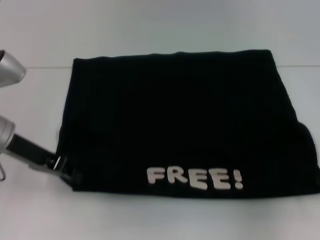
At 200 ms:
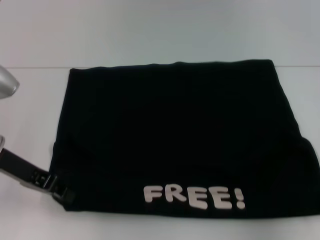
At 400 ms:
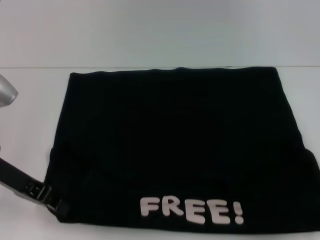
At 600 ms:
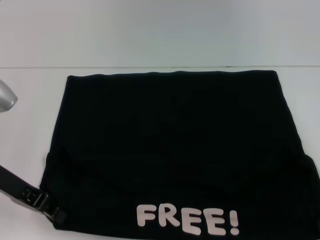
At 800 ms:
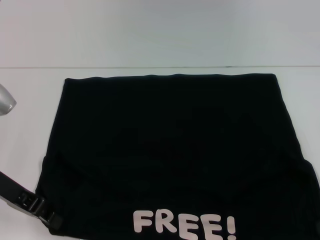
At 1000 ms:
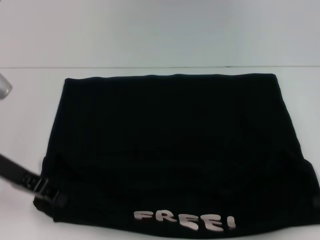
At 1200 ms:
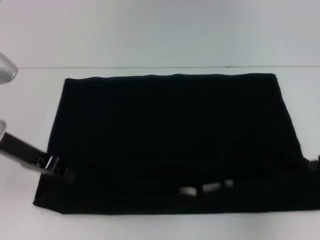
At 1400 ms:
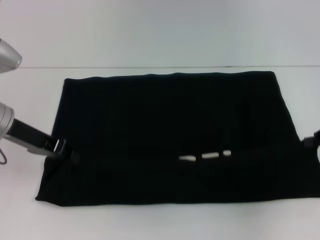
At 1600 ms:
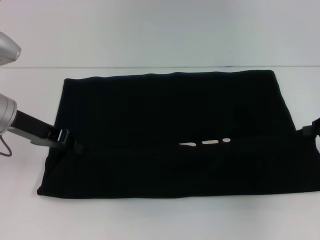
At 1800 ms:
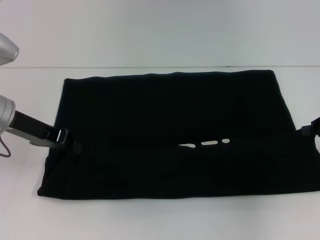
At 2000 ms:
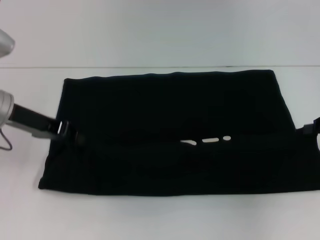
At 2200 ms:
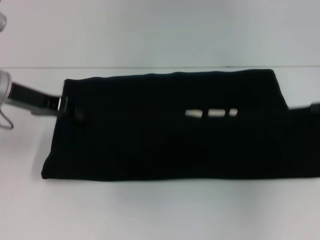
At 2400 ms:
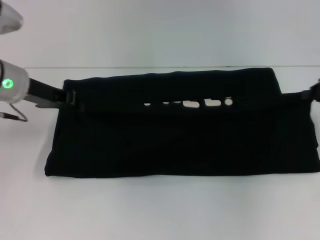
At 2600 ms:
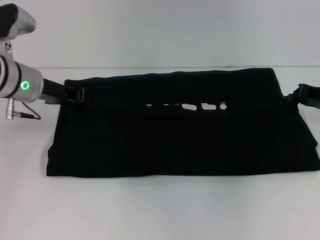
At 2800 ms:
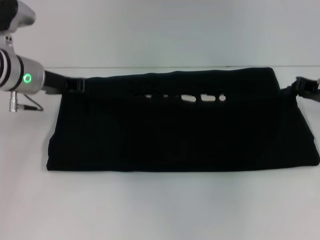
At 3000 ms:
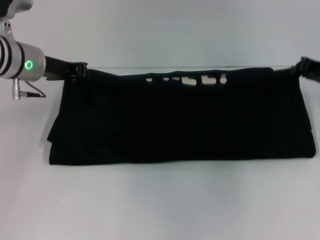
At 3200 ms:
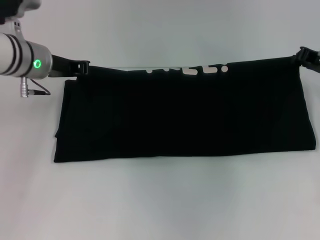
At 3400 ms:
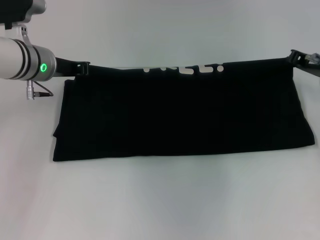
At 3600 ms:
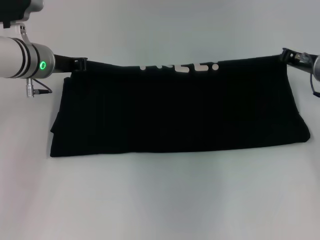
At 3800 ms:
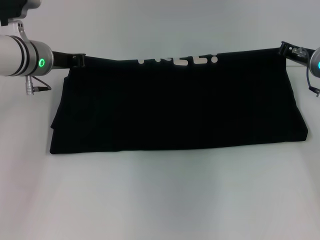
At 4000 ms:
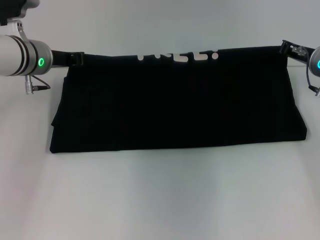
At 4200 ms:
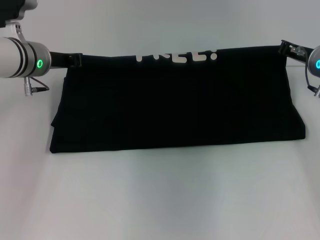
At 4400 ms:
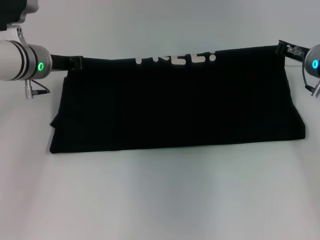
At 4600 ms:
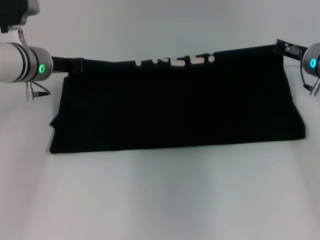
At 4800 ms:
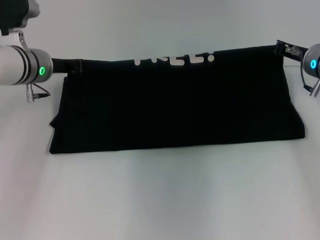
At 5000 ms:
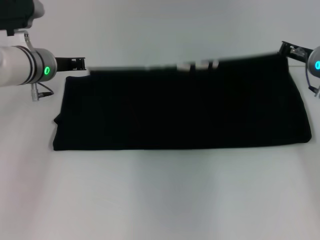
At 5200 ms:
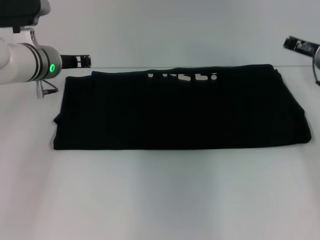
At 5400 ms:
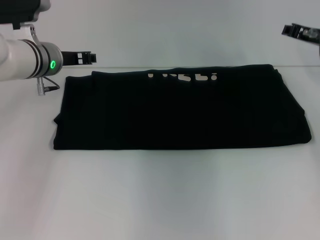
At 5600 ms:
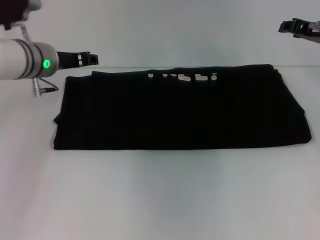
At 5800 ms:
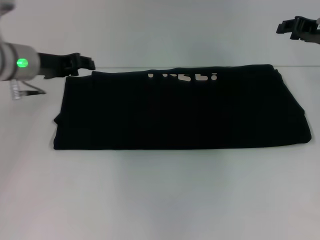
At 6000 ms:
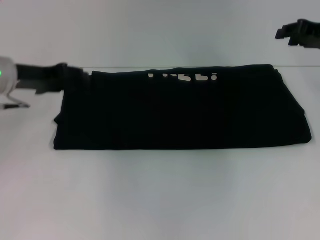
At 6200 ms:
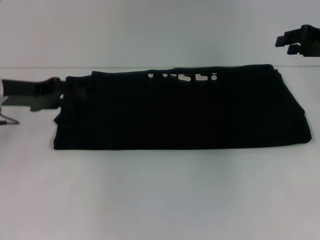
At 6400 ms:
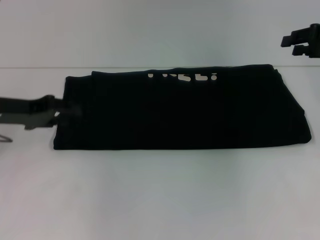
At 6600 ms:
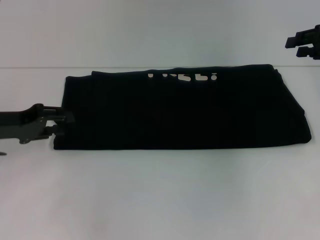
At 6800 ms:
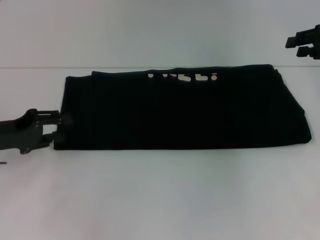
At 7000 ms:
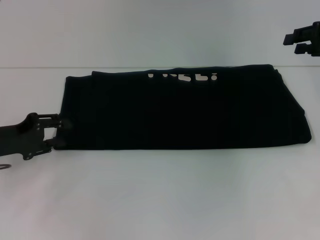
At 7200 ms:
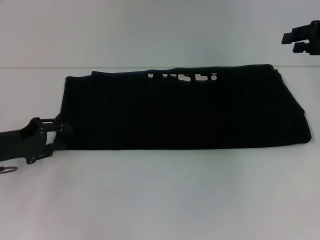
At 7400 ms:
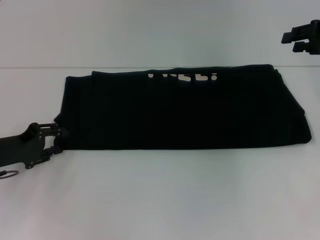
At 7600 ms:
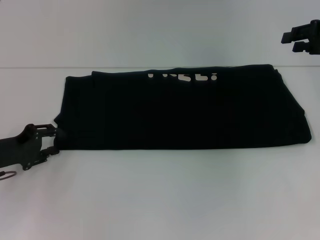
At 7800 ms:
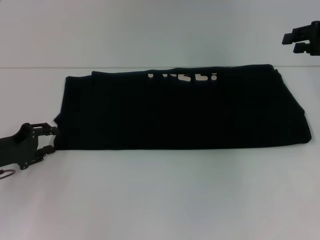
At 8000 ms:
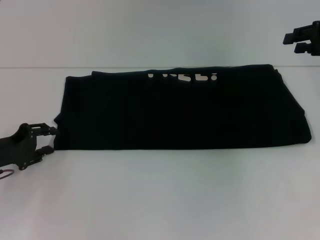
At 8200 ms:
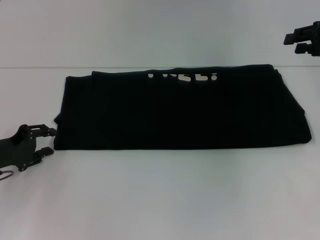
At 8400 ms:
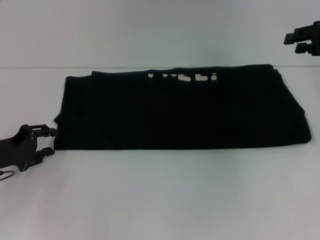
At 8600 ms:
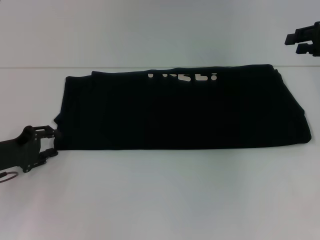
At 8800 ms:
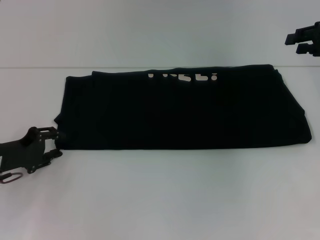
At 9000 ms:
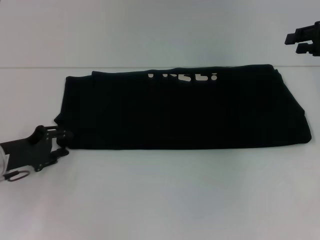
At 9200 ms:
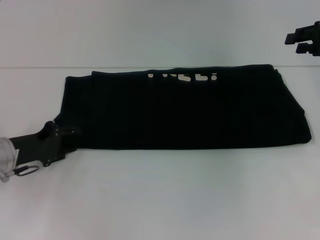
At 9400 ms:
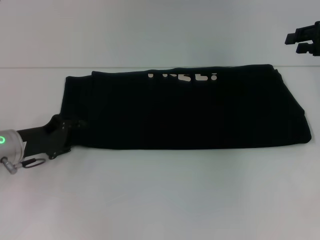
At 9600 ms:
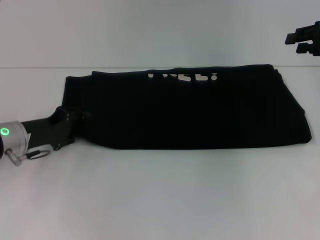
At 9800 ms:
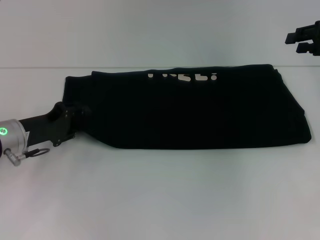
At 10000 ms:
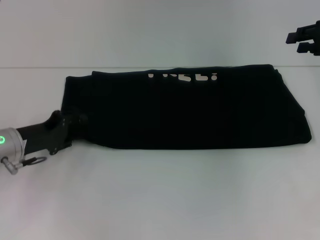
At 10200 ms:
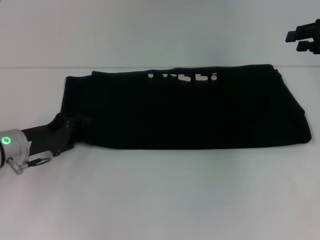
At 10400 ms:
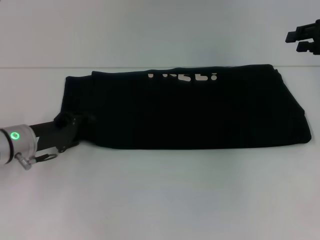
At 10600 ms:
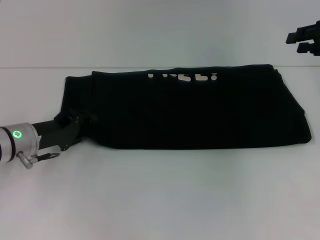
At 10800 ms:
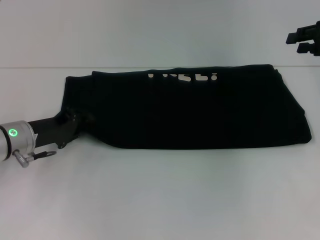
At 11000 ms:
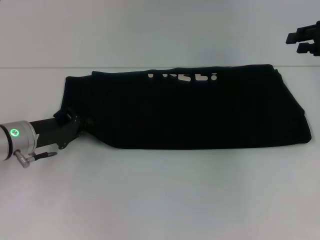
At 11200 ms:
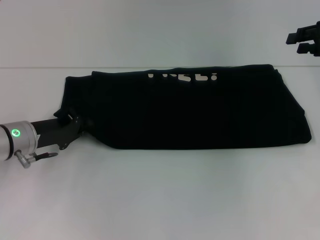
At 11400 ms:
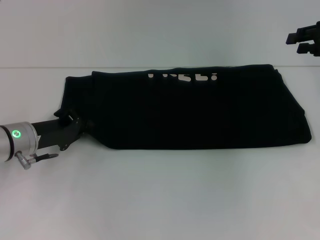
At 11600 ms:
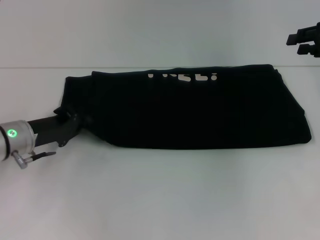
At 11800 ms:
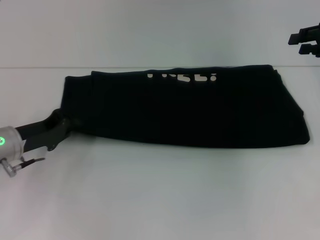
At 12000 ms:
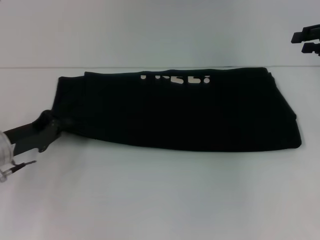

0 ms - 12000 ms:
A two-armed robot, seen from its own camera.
Step, 1000 ms - 5000 ms: Fold the clothes with your right hand.
1600 ms - 3000 ms: The grippers both shift forward by approximately 5 cm.
3000 ms - 4400 ms: The right gripper travels to the left by roughly 5 cm.
4400 ms - 6000 ms: The right gripper is displaced upward and to the right by about 10 cm. Meanwhile the left gripper shifts roughly 5 cm to the left, and opens up.
6000 ms - 7600 ms: The left gripper travels downward and backward by about 15 cm.
7600 ms - 9000 ms: The grippers stay close to where they were, moving slightly.
9000 ms - 10400 ms: The left gripper shifts by roughly 5 cm.
10400 ms - 12000 ms: The left gripper closes up.

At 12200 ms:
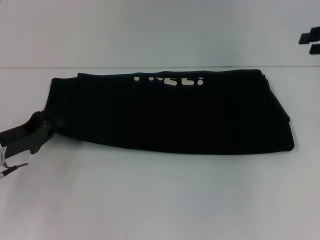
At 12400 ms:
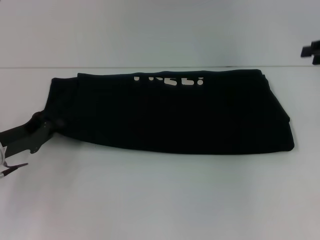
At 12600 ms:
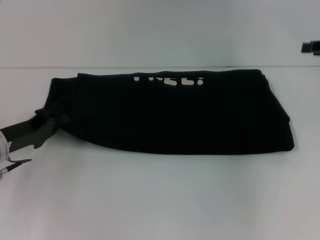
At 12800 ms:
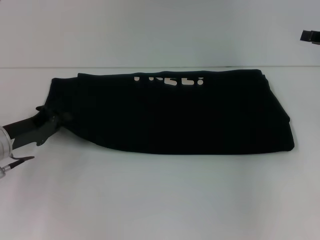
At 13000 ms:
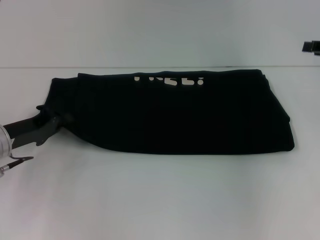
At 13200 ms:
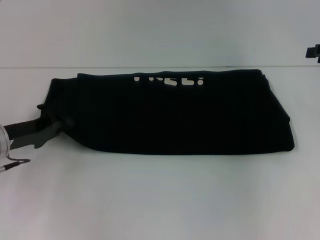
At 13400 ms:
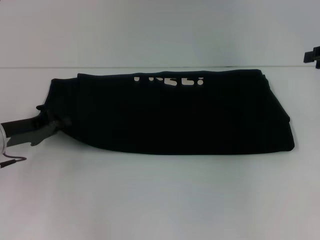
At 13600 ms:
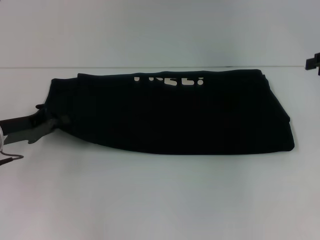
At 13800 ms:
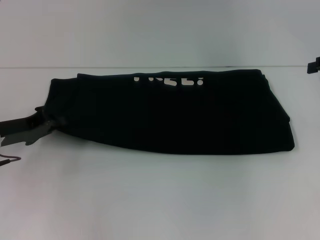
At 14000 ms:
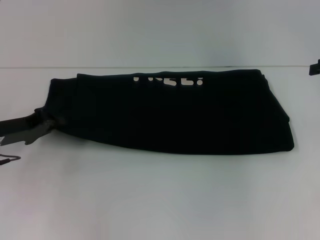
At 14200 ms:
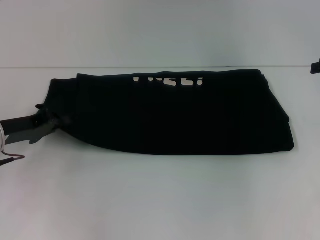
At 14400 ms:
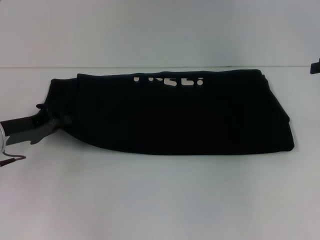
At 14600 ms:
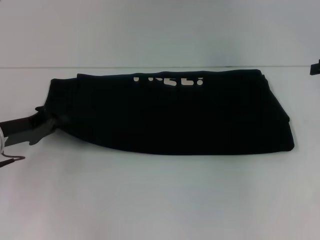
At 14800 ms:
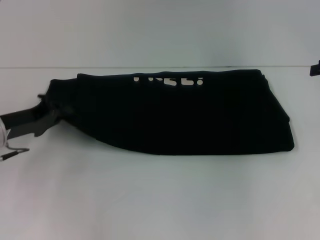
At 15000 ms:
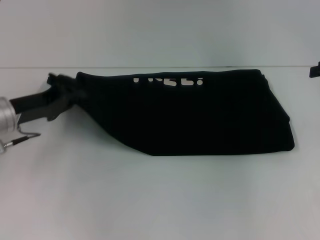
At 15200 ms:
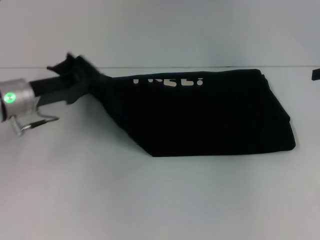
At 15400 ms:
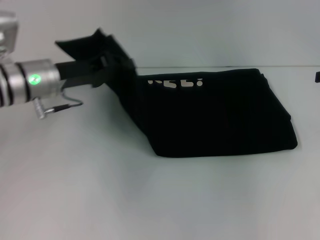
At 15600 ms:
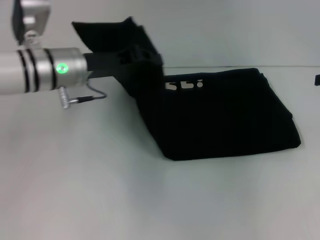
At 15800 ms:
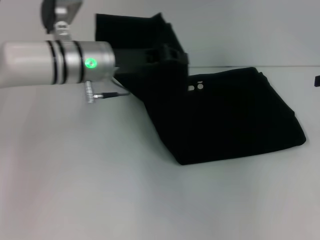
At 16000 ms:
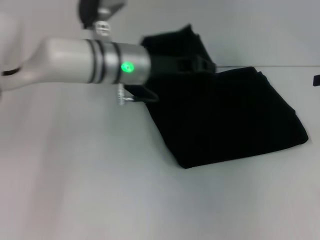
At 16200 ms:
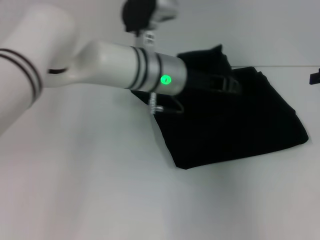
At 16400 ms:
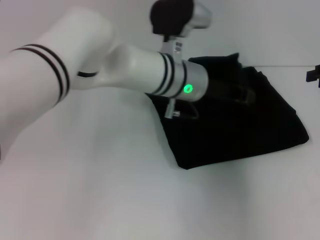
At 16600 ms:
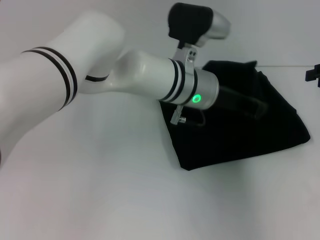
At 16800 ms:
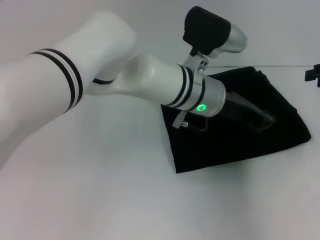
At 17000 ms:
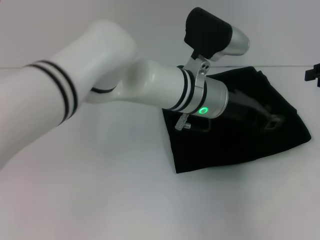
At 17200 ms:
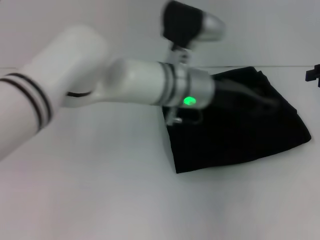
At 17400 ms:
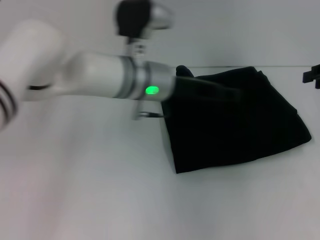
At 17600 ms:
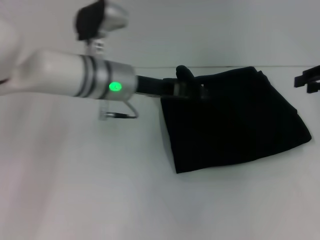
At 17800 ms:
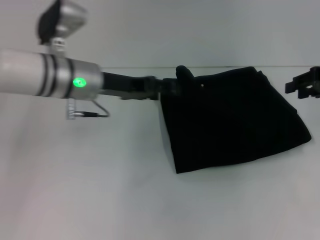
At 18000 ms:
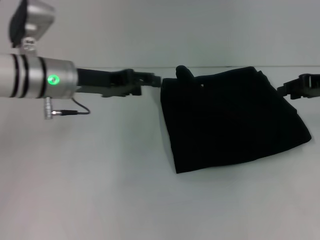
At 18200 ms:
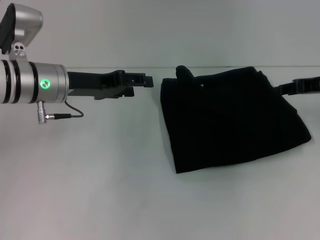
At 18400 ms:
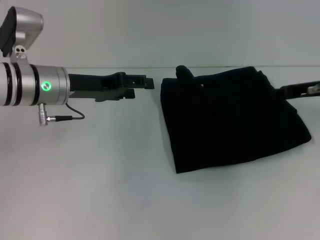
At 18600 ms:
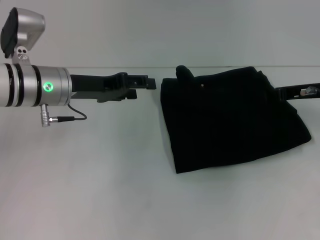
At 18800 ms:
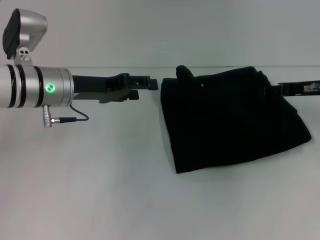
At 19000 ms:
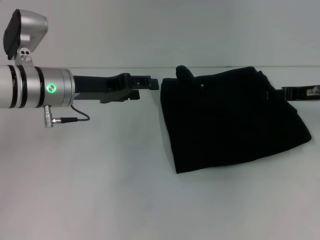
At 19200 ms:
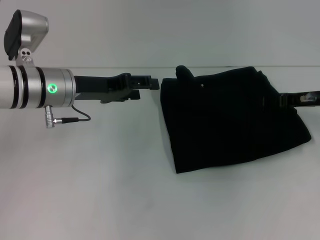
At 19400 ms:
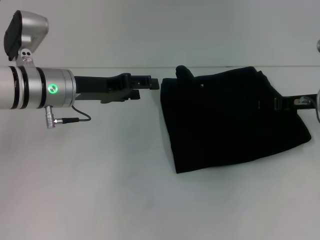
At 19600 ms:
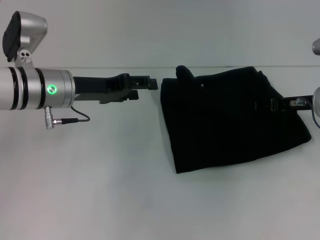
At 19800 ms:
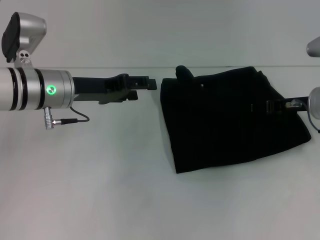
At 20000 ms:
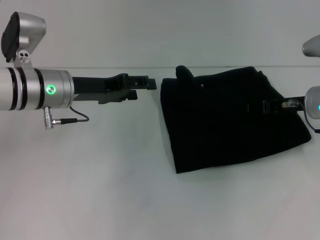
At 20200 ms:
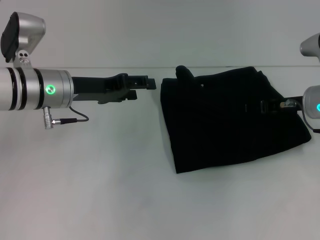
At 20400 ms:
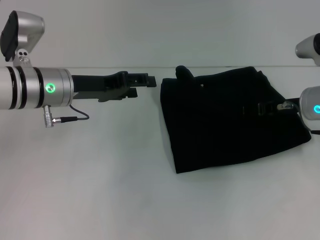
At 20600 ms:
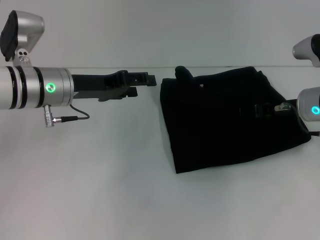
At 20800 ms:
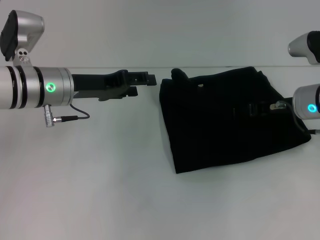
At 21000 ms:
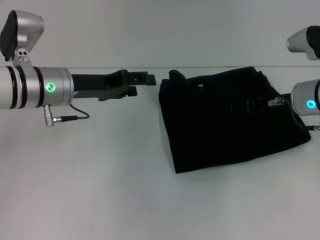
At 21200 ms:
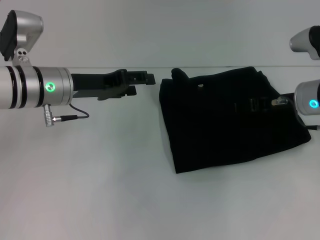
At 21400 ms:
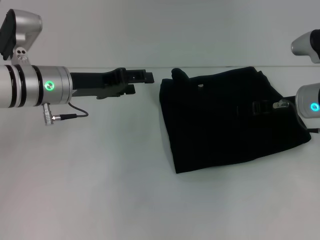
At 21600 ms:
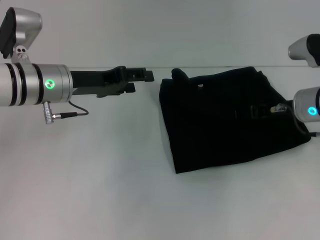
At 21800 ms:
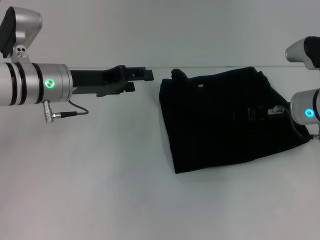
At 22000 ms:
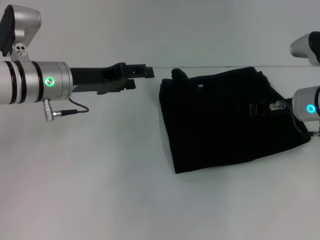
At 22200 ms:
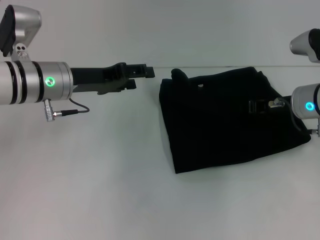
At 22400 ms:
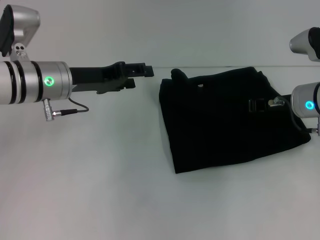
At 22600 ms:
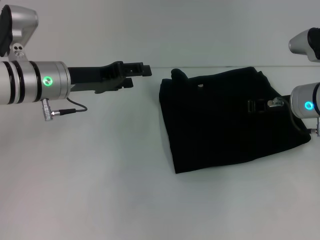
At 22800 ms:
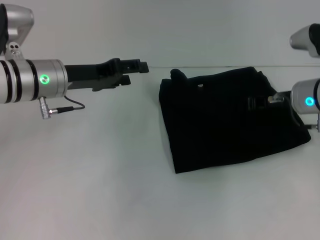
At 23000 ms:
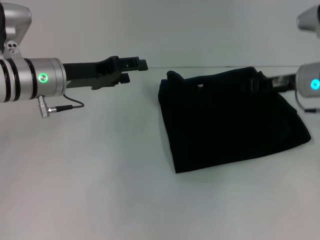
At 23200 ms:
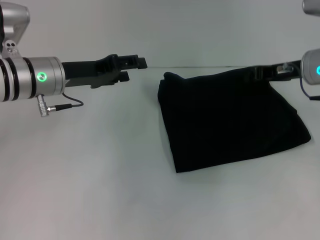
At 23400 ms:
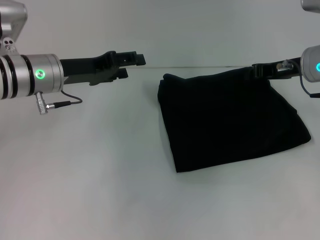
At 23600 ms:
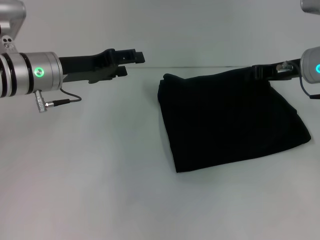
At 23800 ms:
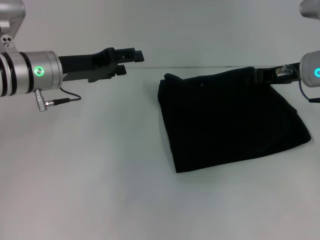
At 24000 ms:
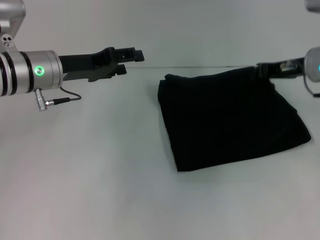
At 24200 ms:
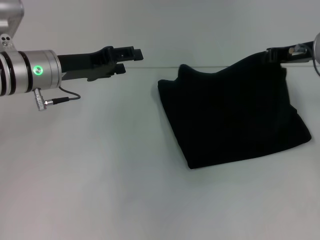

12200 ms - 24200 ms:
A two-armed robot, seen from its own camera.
Step, 12200 ms - 17000 ms: Fold the clothes with your left hand.
13800 ms - 15200 ms: The left gripper shifts roughly 5 cm to the right.
15200 ms - 16600 ms: The left gripper shifts approximately 25 cm to the right.
16600 ms - 18200 ms: The right gripper travels downward by roughly 5 cm, while the left gripper goes about 20 cm to the left, and opens up.
18200 ms - 19800 ms: The right gripper travels downward by some 5 cm.
19800 ms - 21200 ms: The grippers make only small movements.
21200 ms - 22600 ms: The right gripper closes up.
22600 ms - 24200 ms: The right gripper is displaced upward by about 10 cm.
